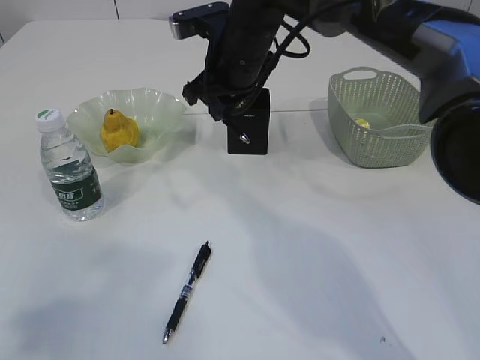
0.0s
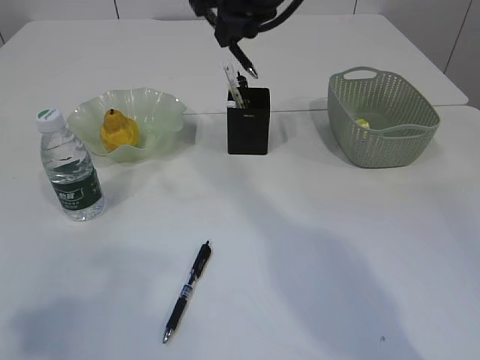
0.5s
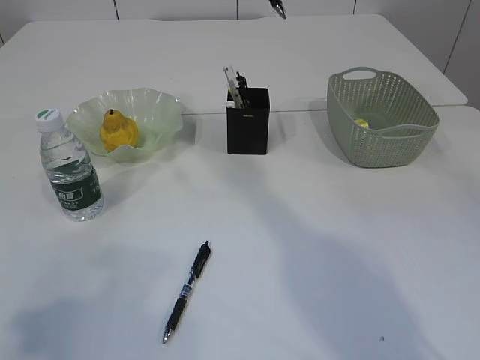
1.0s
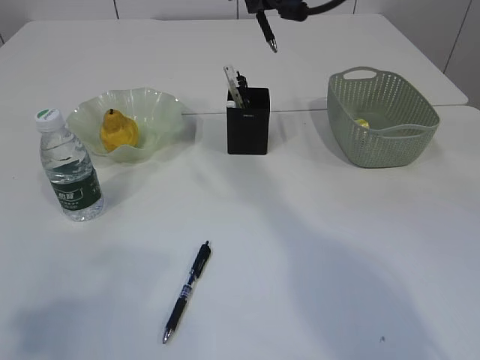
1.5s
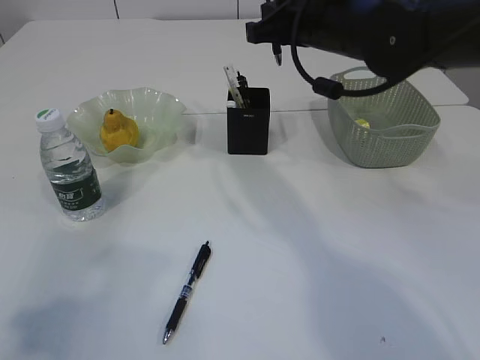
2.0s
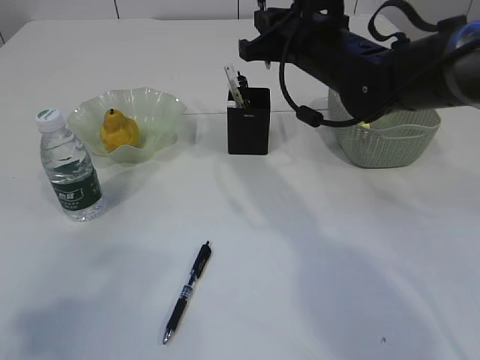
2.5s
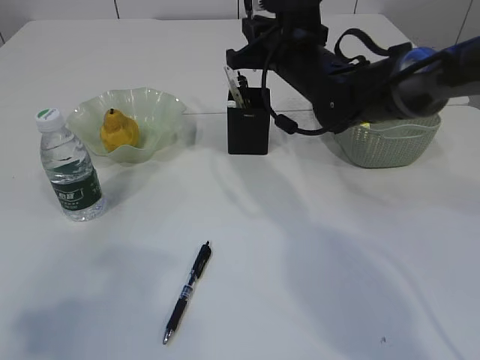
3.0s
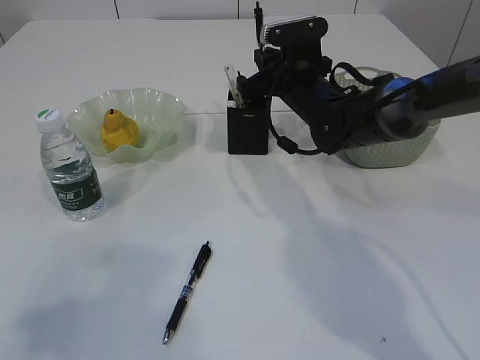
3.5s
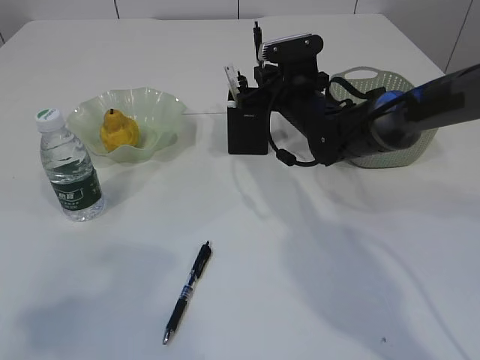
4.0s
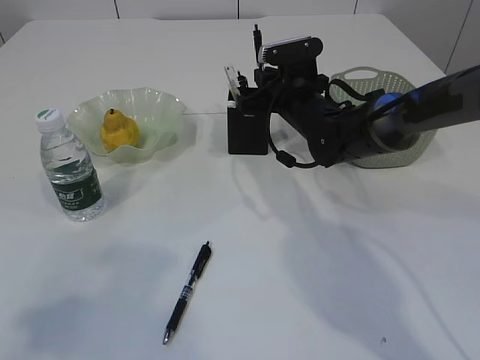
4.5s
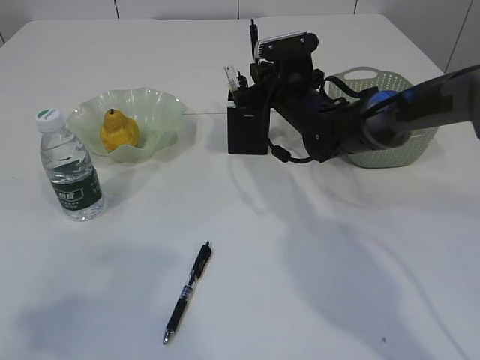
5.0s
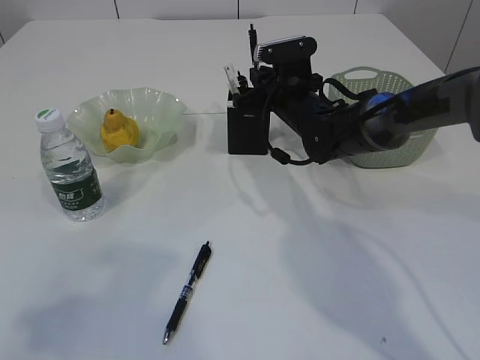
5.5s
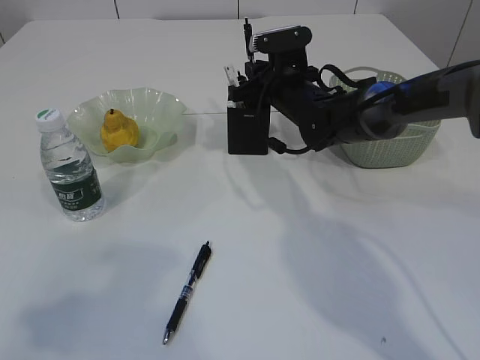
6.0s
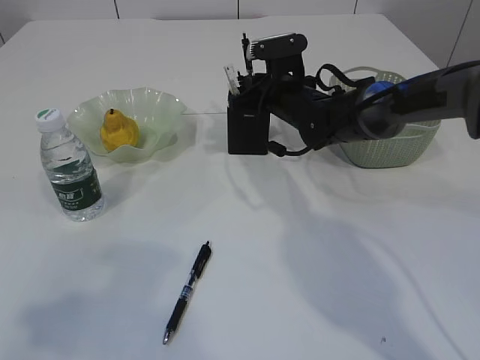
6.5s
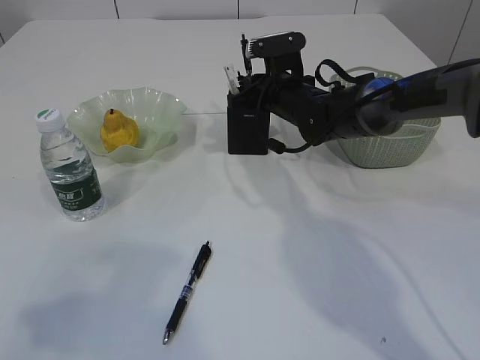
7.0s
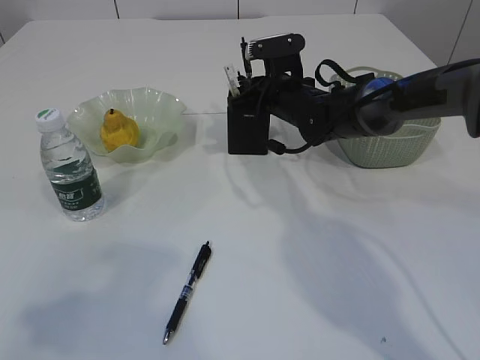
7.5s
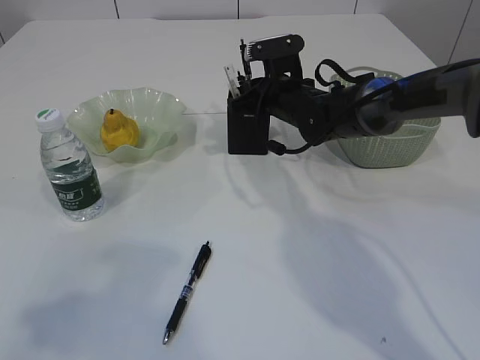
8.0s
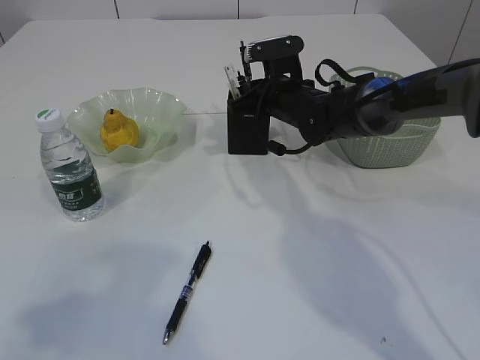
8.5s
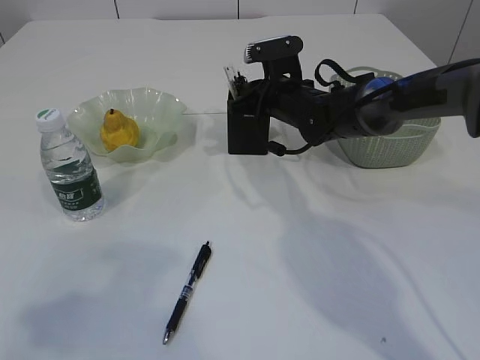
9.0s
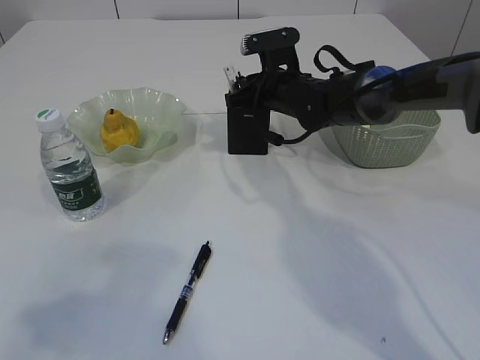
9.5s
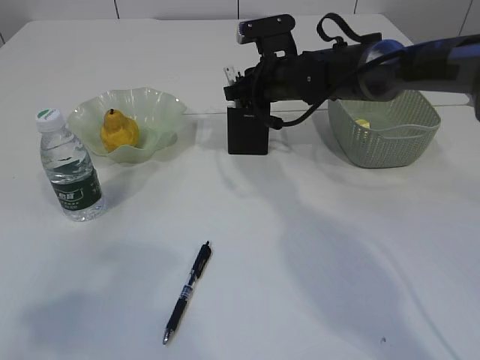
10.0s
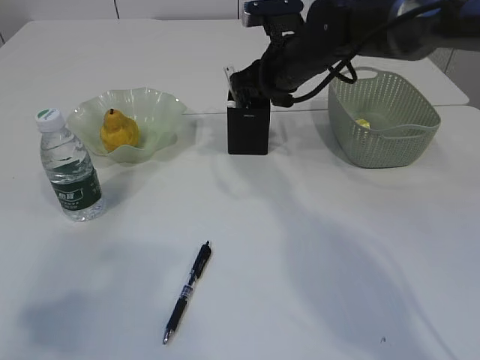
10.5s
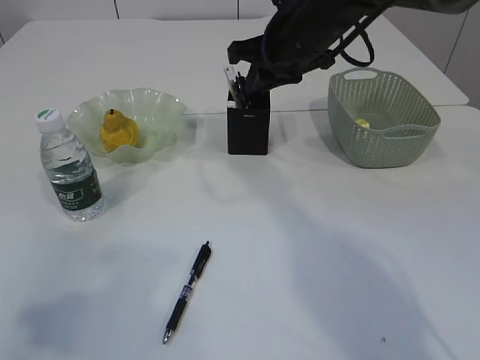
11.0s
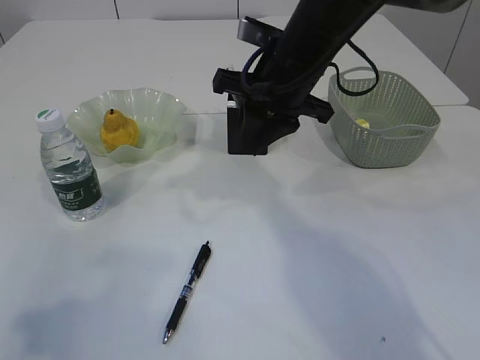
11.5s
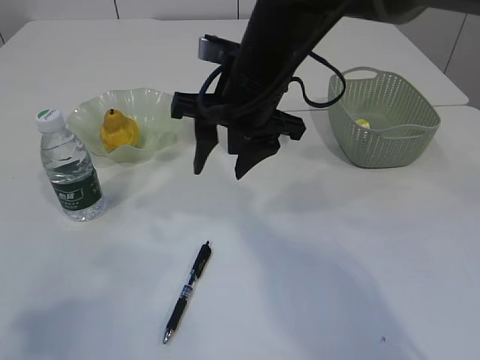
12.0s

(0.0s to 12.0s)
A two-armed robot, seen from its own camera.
Step, 0.0s - 11.0s: Place the pen into the pen holder.
0.0s - 2.0s: The right gripper moves to the right, some 10 cm, and travels upward and back again, roughly 15 cm each way.
2.0s - 4.0s: The right gripper shifts about 15 cm downward and forward.
4.0s - 8.0s: There are only small adjustments of the grippers.
8.0s - 10.0s: The grippers make only small movements.
10.0s - 12.0s: The right gripper is displaced backward and upward by roughly 15 cm, and opens.

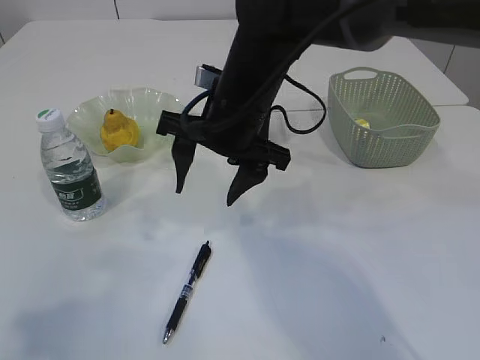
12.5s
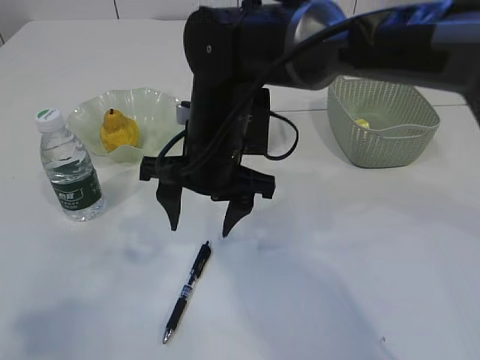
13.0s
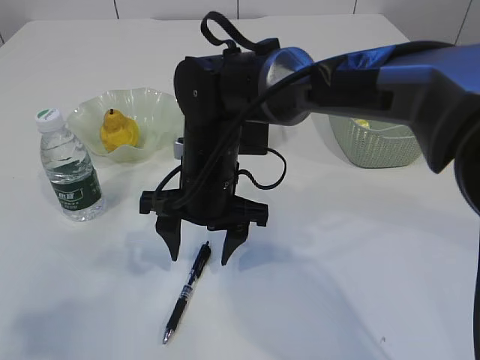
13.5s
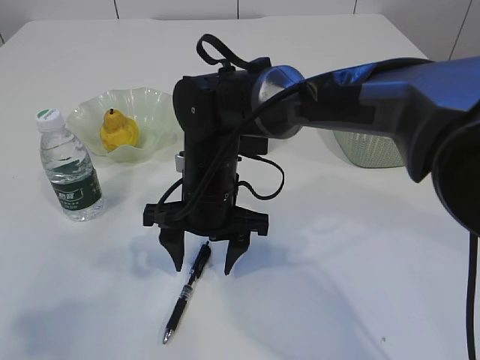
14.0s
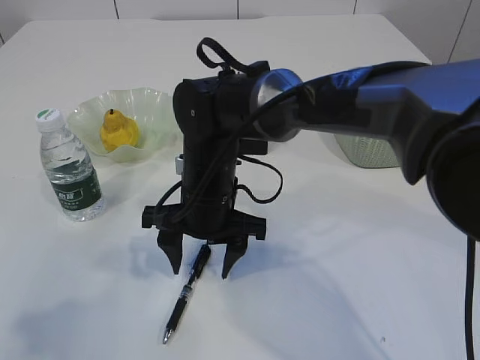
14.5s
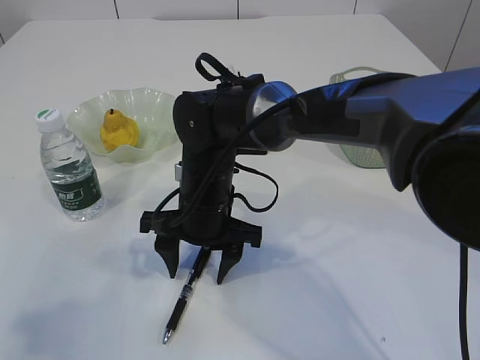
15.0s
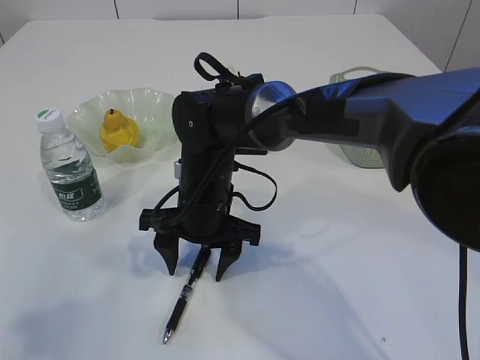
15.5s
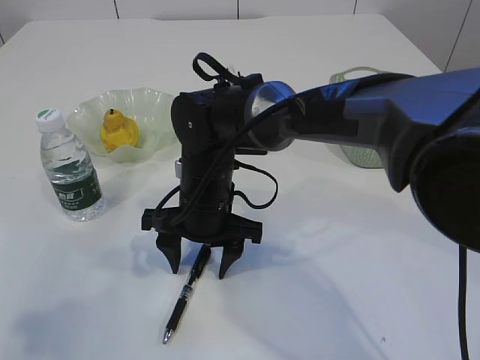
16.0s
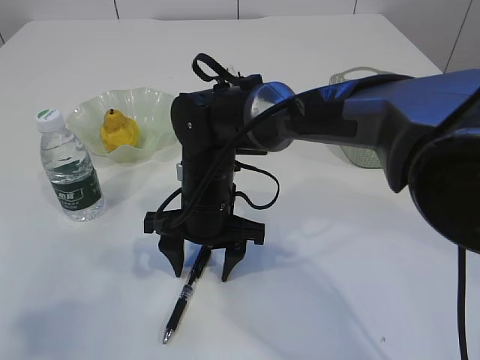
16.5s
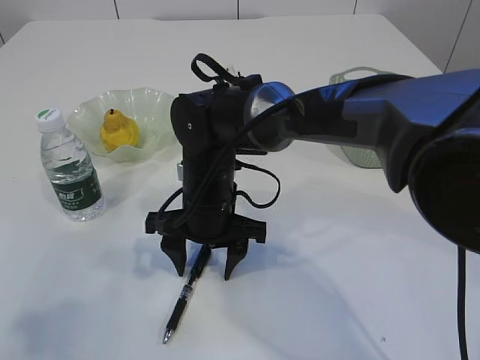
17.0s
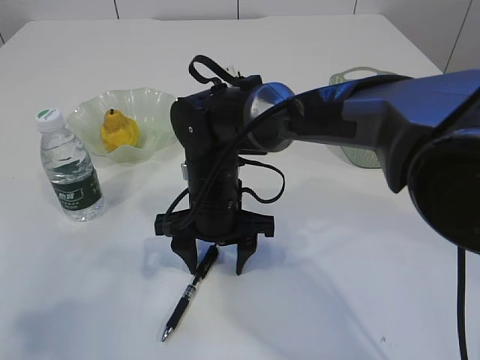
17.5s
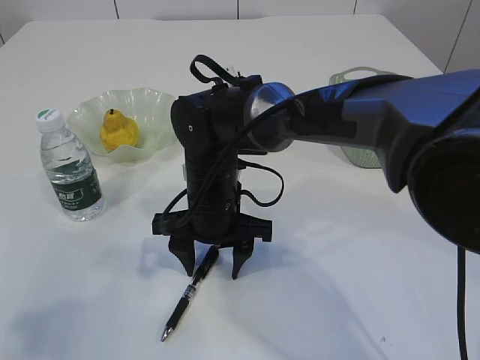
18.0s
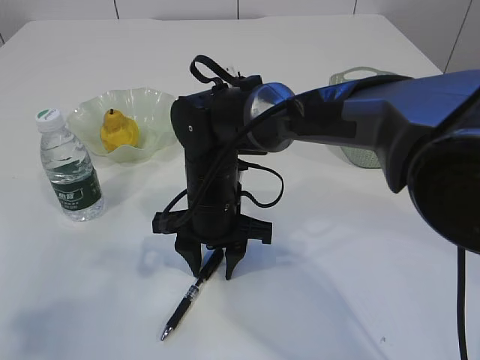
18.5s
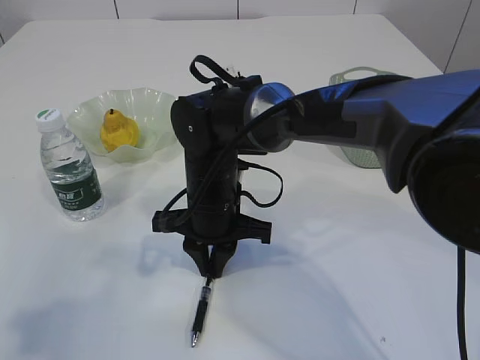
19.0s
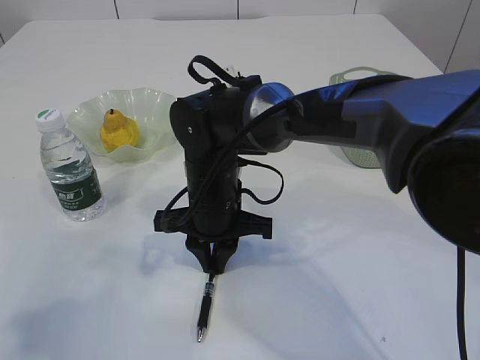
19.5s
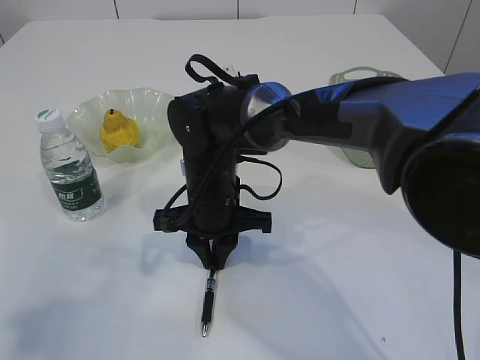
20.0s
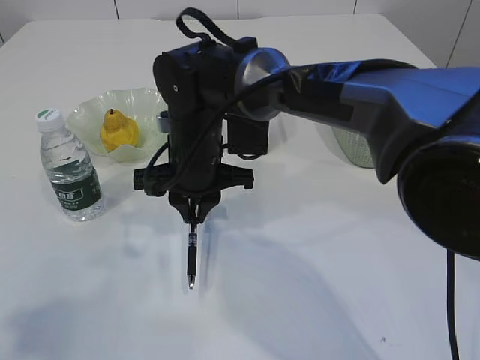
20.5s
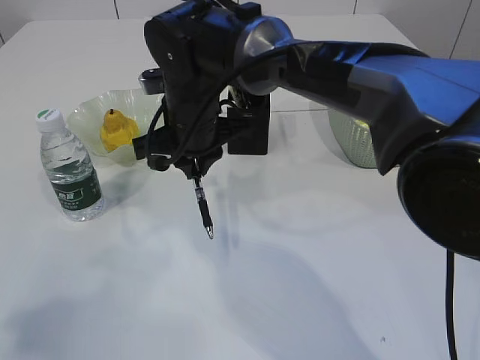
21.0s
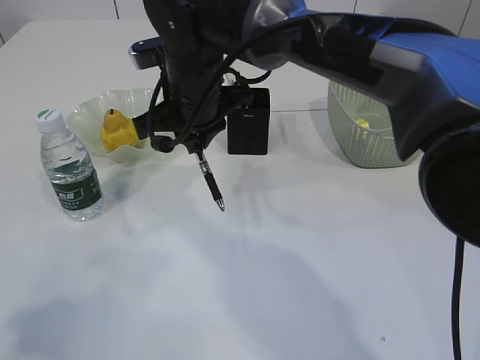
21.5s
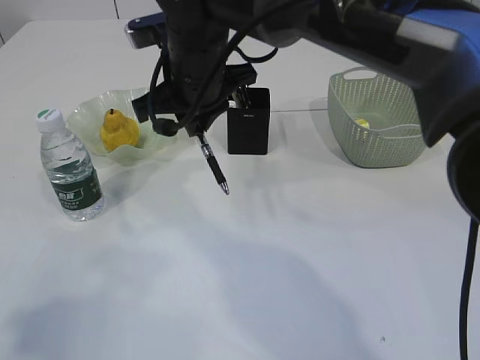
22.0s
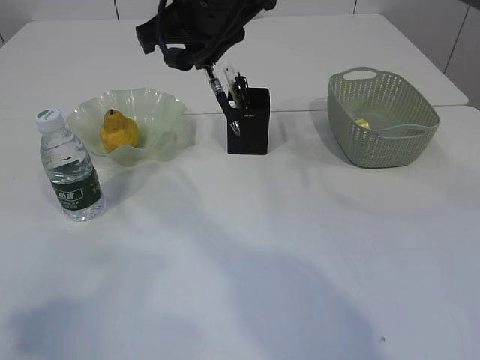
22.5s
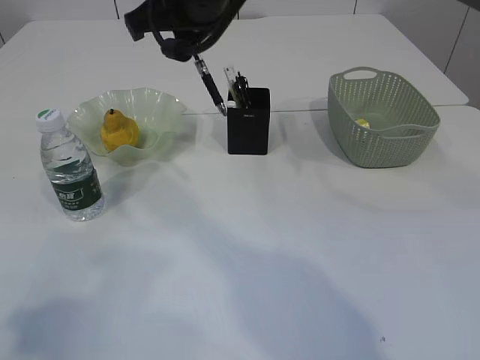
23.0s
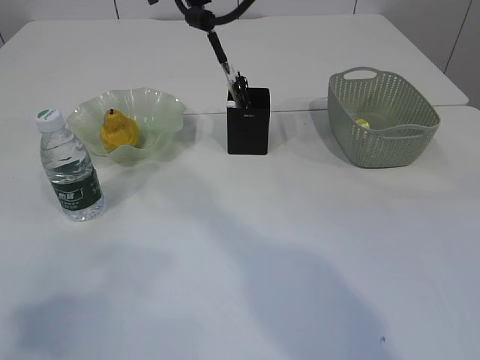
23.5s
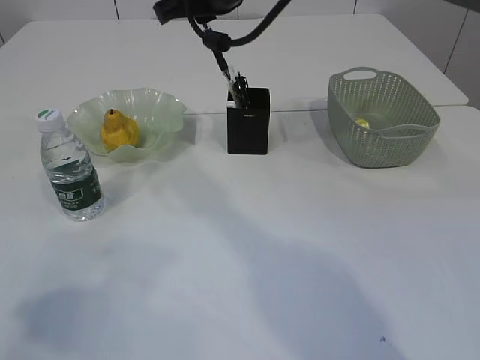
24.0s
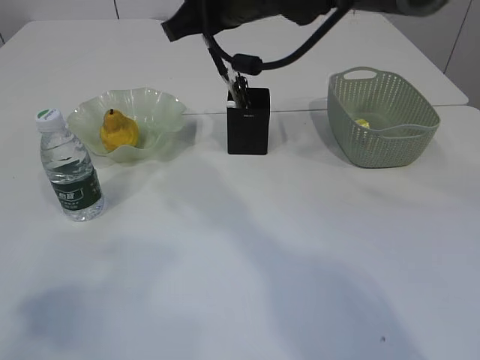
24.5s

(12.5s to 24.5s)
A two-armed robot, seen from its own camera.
Step, 12.5s - 21.0s: Pick up the pen with right arm.
12.5s - 14.5s: The right gripper shifts about 10 cm downward.
14.5s - 18.5s: There are only small adjustments of the grippers.
18.5s - 20.5s: The right gripper moves some 5 cm, and closes up.
20.5s - 22.5s: The right gripper heads upward, covering some 15 cm.

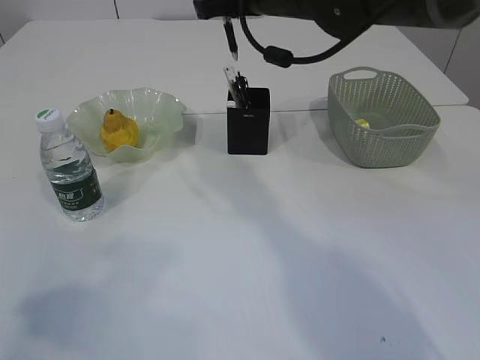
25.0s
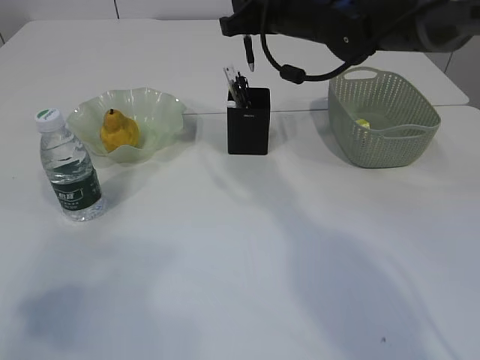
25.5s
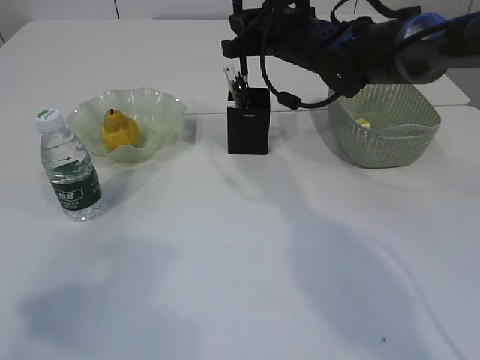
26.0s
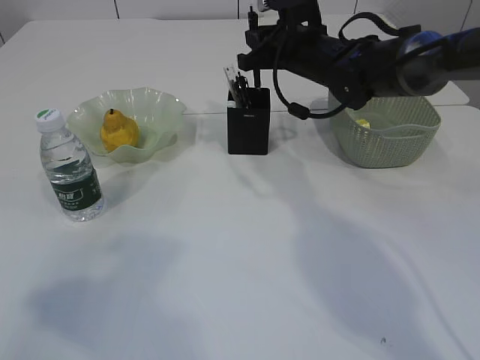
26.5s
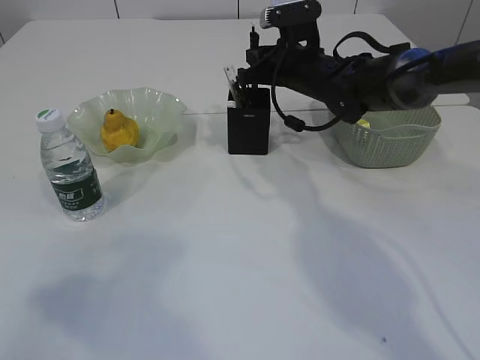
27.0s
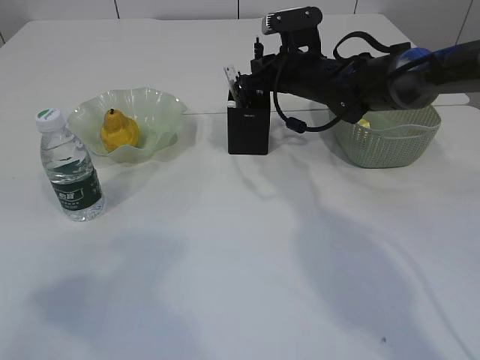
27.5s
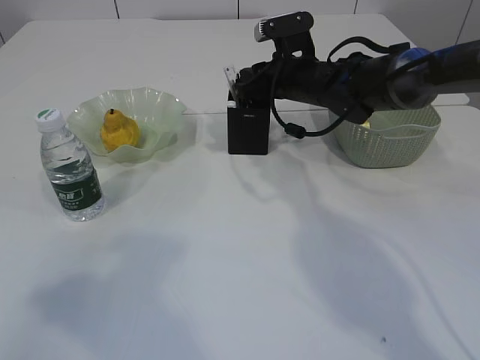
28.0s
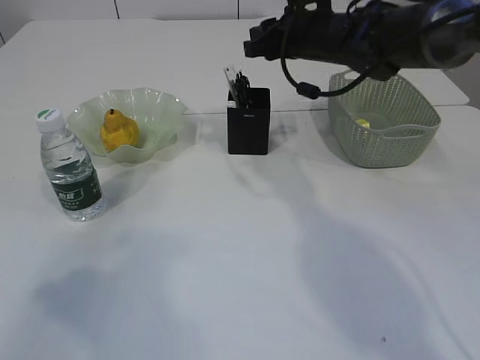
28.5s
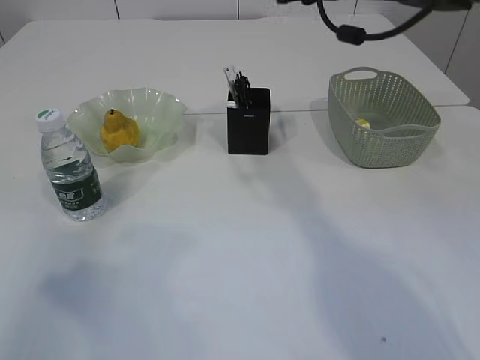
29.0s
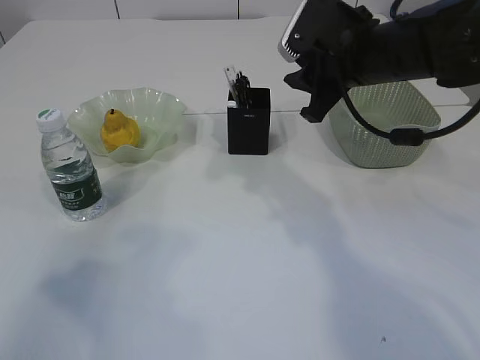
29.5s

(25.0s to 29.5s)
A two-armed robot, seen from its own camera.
Step, 25.0s - 28.5s: Place the pen into the pen holder.
25.0s - 27.0s: The right gripper goes some 15 cm downward, forward and to the right.
27.0s - 29.5s: The right gripper moves backward and upward, some 15 cm.
